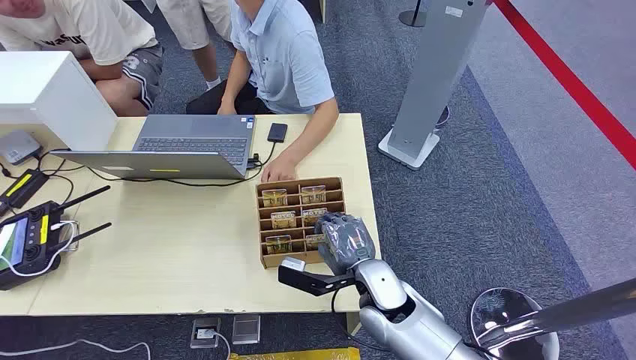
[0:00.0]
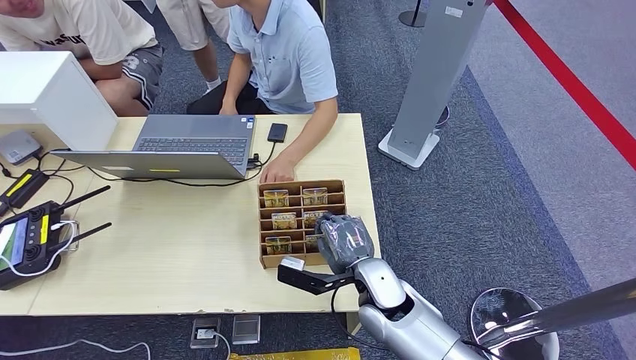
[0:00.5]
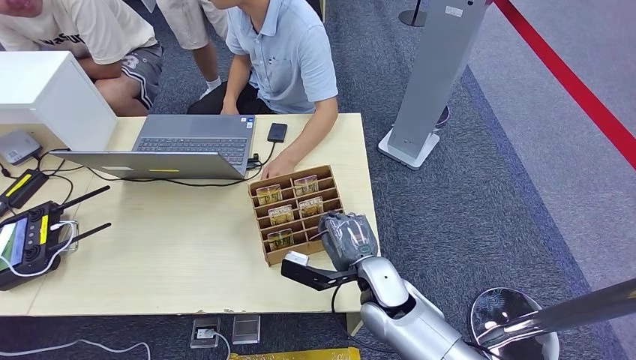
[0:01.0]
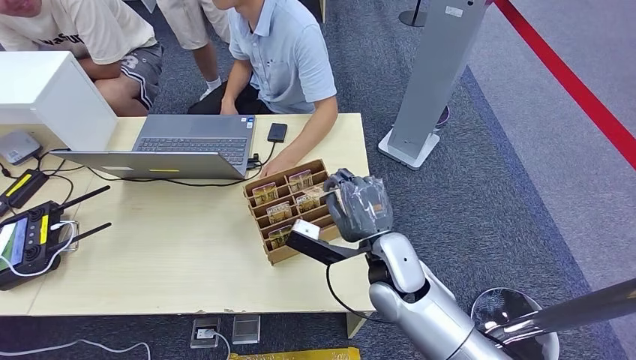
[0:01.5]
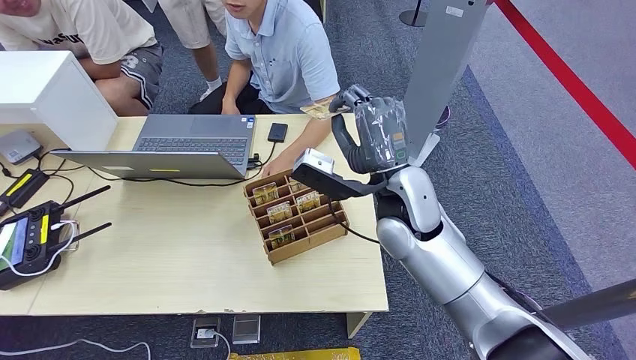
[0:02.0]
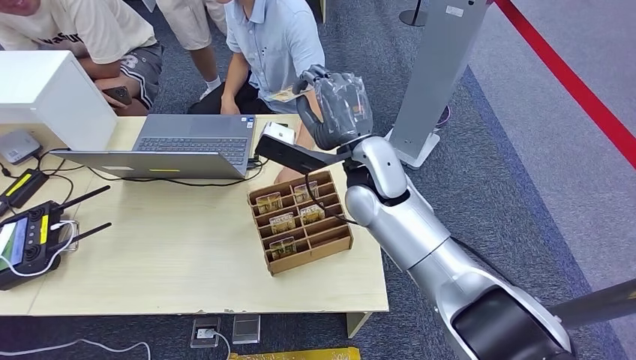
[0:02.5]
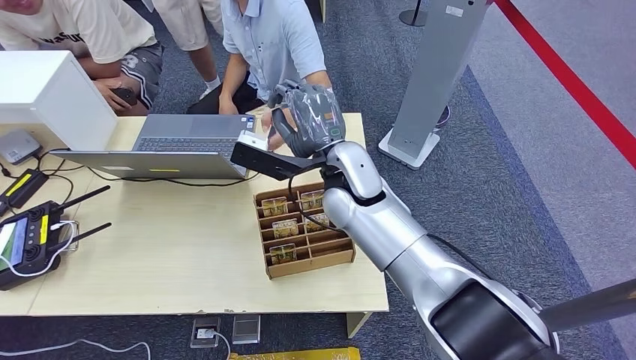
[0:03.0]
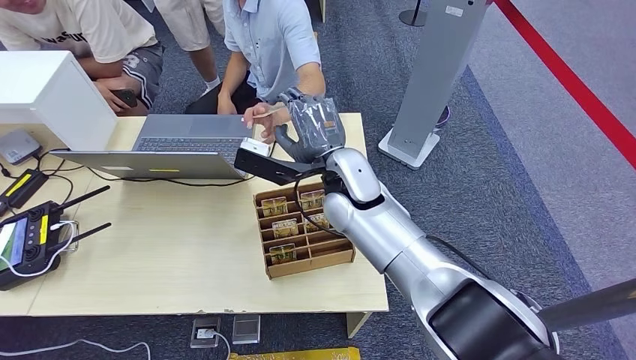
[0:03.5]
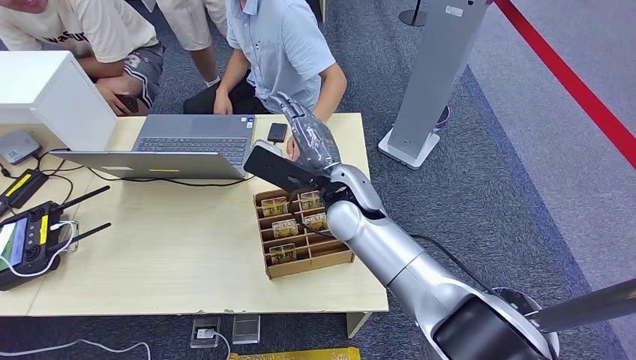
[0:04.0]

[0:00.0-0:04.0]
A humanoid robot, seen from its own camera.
Step, 0:00.0 to 0:01.5: Pick up the room card from the card holder.
Step, 0:02.0 to 0:04.0: Hand the room card to the target.
0:02.0 to 0:04.0: The right hand heads to the left, covering about 10 cm.
